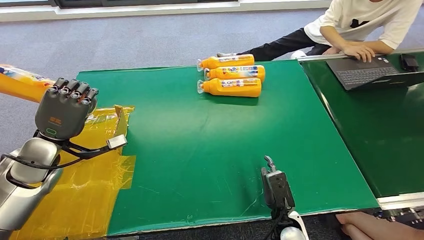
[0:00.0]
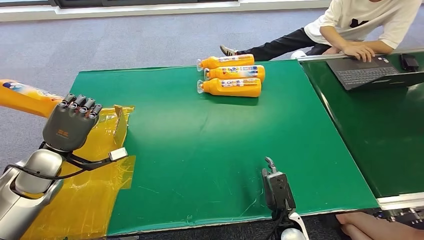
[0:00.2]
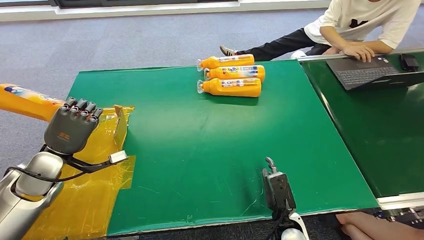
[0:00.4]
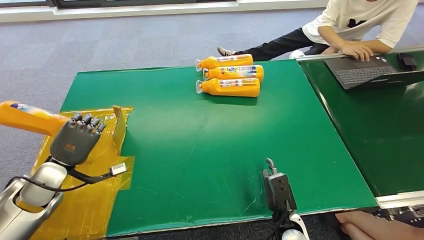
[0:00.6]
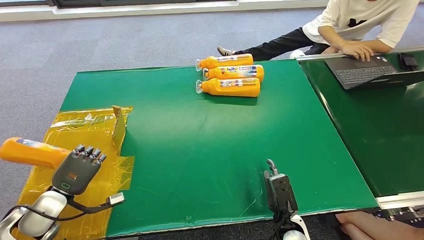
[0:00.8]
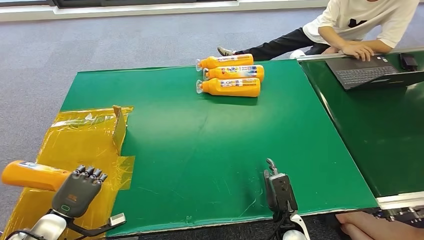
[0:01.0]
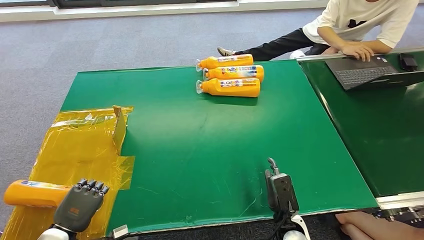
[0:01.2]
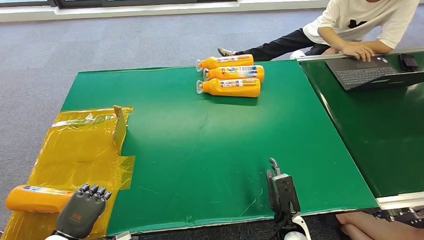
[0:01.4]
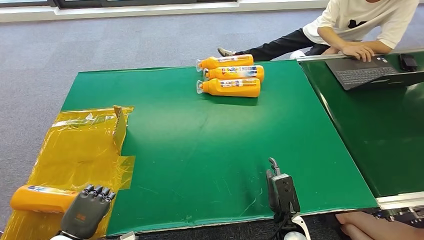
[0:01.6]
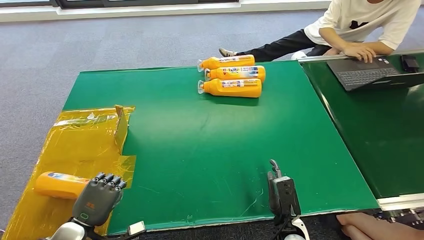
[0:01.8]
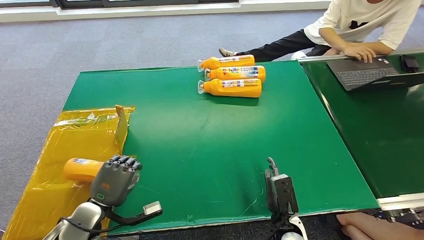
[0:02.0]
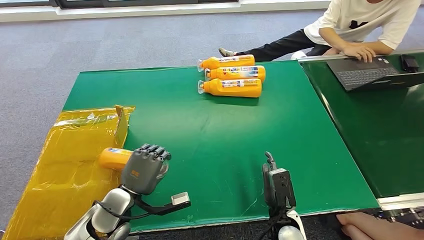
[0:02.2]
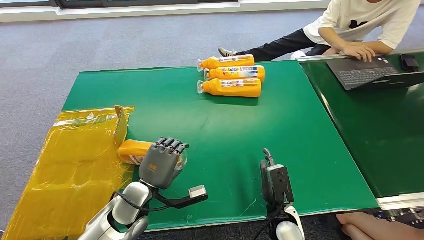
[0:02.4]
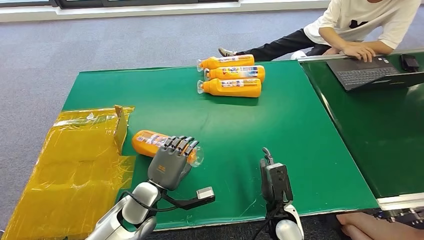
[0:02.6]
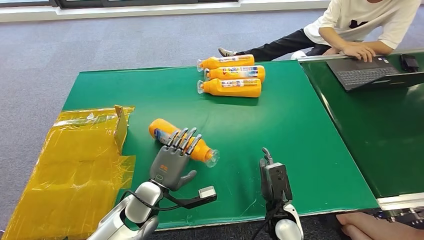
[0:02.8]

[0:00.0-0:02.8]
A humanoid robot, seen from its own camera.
Step, 0:00.0 to 0:02.8: Turn the bottle to the front side.
0:00.0 to 0:01.4: The left hand heads backward and downward, covering some 25 cm.
0:01.4 to 0:02.8: The left hand goes roughly 25 cm to the right and forward.
